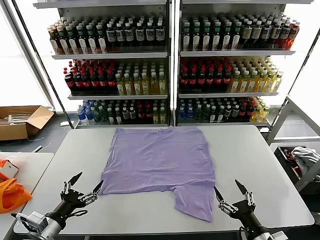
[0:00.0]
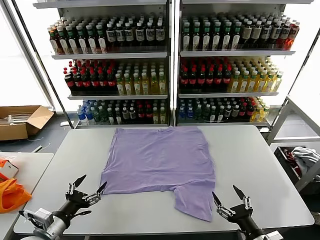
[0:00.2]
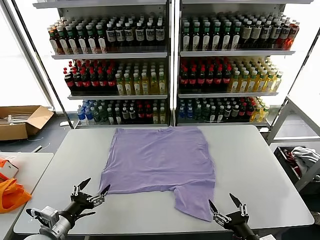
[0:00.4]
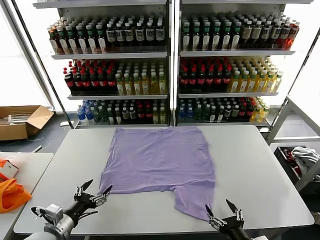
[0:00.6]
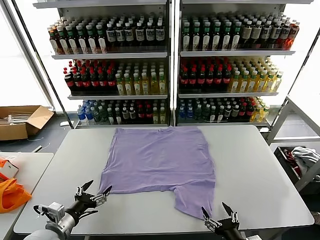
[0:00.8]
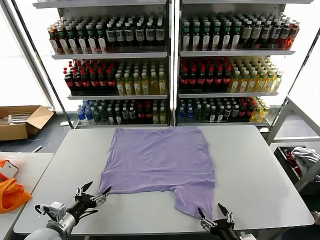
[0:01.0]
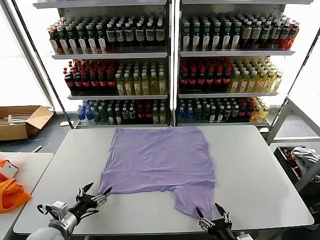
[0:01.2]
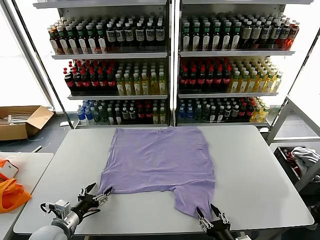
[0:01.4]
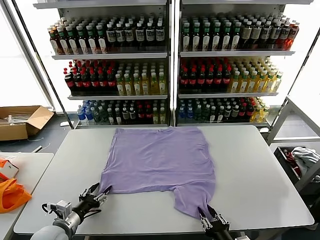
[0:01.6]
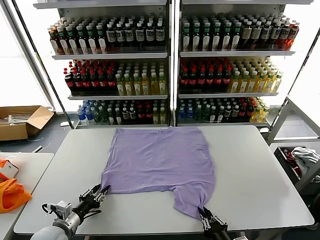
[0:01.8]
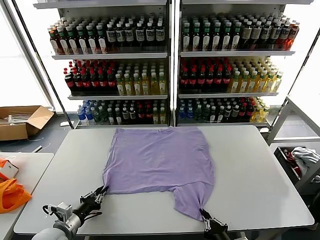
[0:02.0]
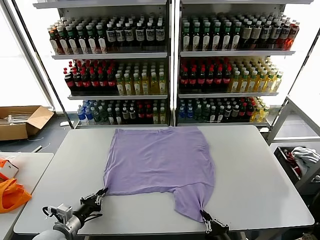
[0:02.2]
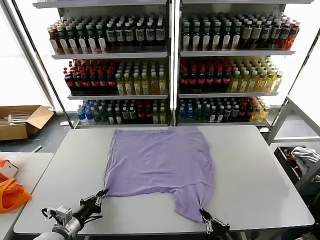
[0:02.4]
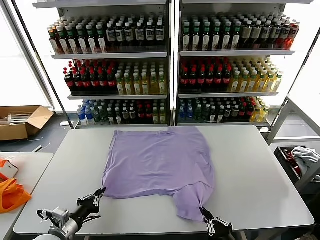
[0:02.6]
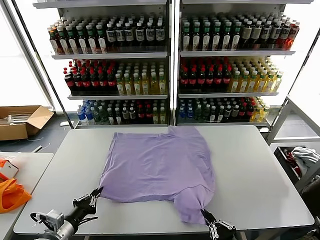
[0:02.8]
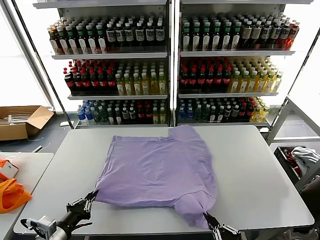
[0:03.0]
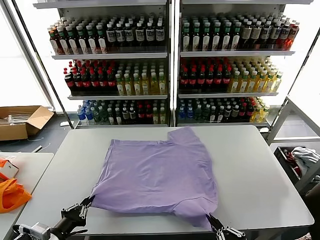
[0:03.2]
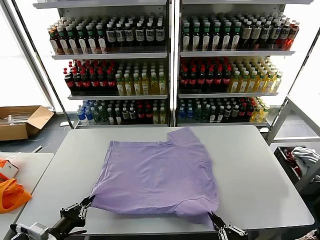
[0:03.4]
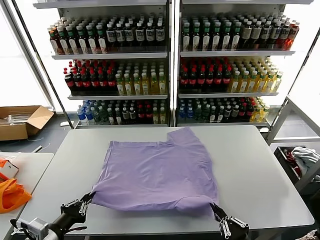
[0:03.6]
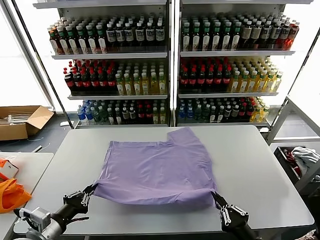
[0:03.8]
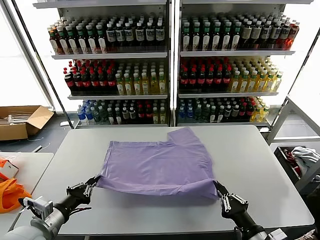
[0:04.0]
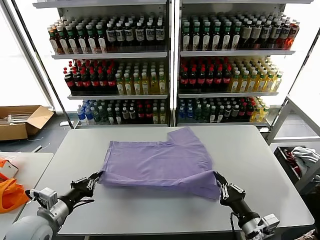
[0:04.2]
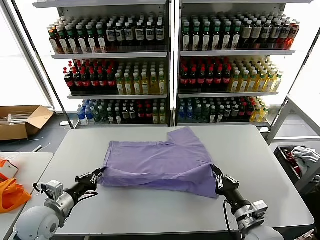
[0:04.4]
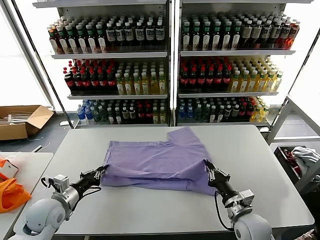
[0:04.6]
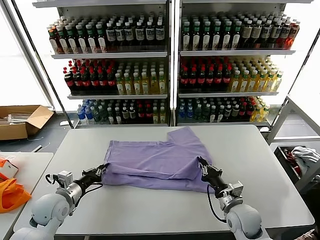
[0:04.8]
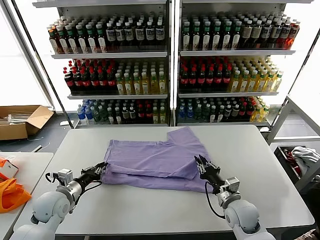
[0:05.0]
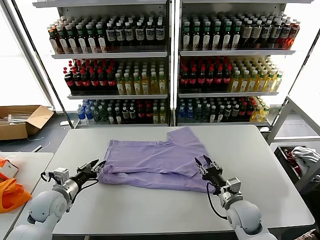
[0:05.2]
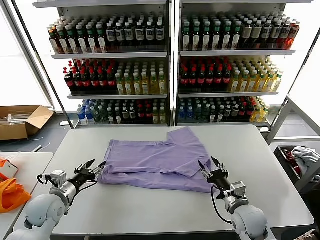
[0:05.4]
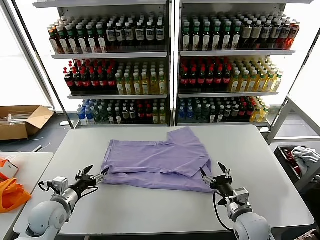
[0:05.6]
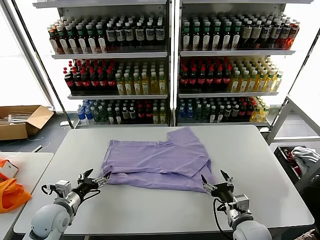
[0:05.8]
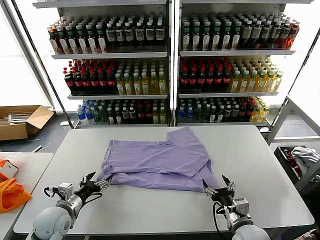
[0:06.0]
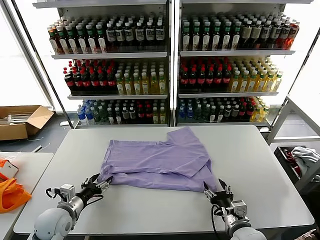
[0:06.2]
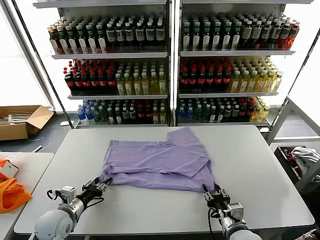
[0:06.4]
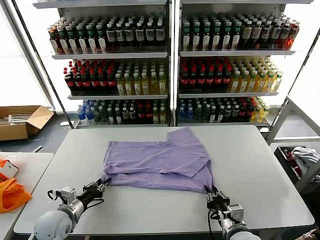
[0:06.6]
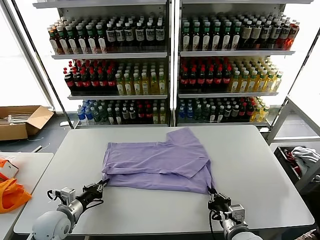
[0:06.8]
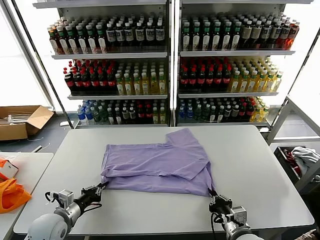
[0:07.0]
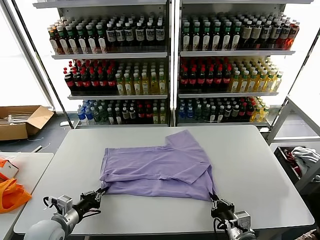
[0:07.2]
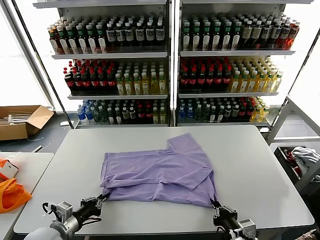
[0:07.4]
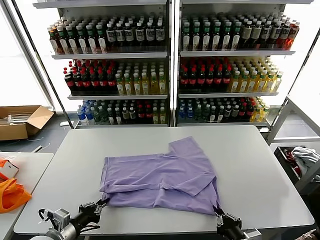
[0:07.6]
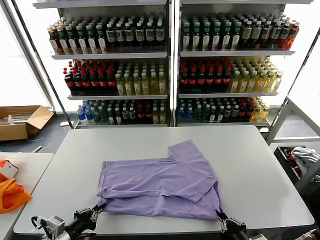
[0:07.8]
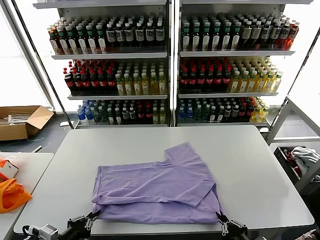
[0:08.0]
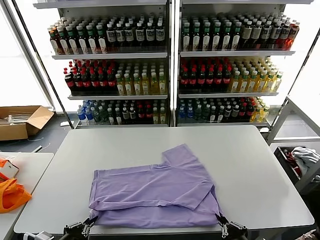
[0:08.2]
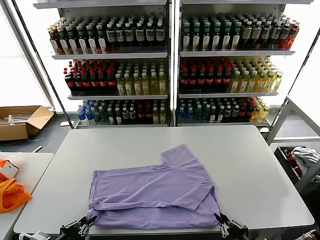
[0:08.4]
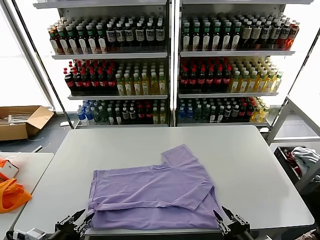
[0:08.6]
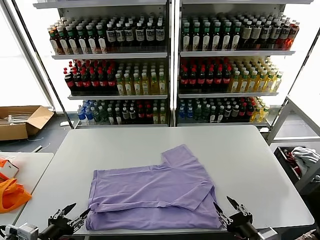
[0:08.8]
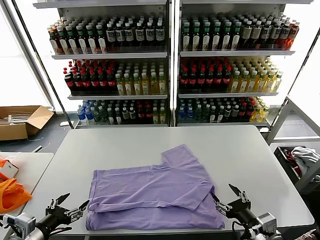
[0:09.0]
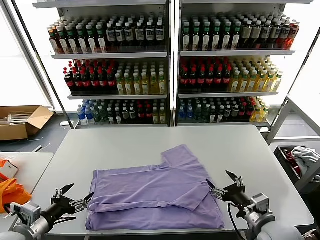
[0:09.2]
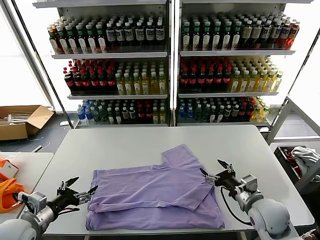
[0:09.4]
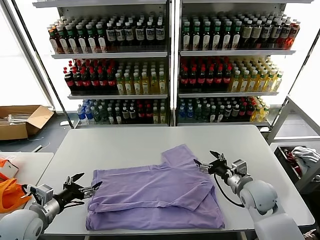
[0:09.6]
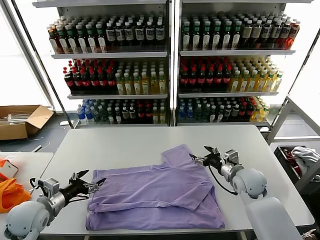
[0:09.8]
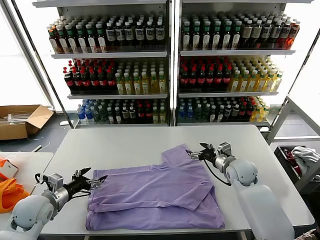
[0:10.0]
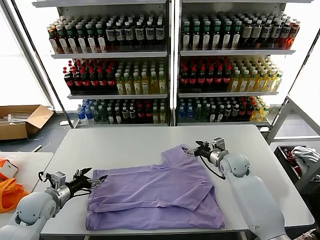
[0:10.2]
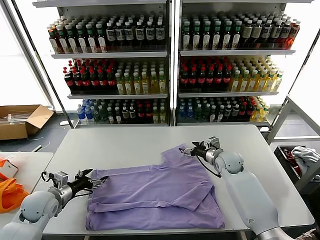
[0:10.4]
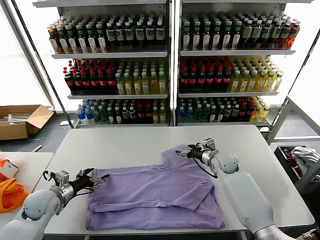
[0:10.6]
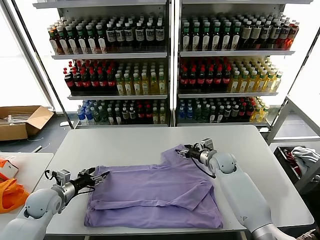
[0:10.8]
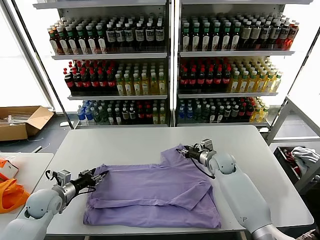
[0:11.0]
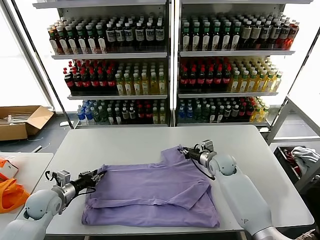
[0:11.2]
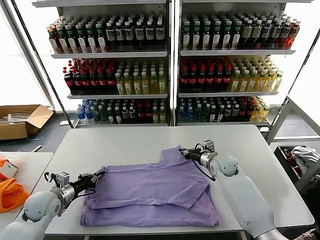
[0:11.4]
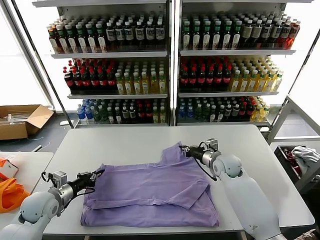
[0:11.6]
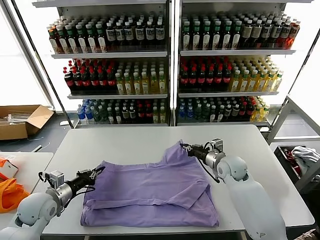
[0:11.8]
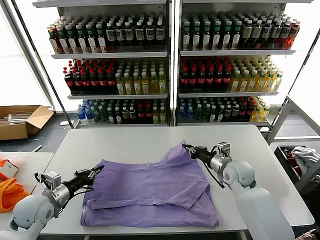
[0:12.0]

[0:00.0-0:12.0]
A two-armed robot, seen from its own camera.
Task of the whole recording: fold and organize the clothes.
Step, 0:00.0 to 0:02.2: use both grippers simultaneously to clamp the lower edge of the clothing fabric.
Step, 0:02.4 to 0:05.0: use both grippers to drag the lower edge of the fabric forward and fold it over the upper edge.
Step, 0:05.2 to 0:08.6: Drag the clothes downward with both gripper.
Step, 0:08.8 to 0:11.4: use both grippers simultaneously to clamp the upper edge of the clothing fabric.
0:01.6 to 0:03.0: The left gripper is displaced backward and upward by about 10 cm, and closes its fingers; the right gripper is displaced upward and backward by approximately 10 cm.
0:03.0 to 0:04.4: The right gripper heads forward, covering some 20 cm. Meanwhile the left gripper shifts some 10 cm forward.
0:04.4 to 0:06.0: The right gripper reaches roughly 5 cm forward, then returns, and opens; the left gripper opens.
0:06.0 to 0:07.6: Both grippers move backward, roughly 10 cm. The left gripper closes its fingers; the right gripper closes its fingers.
0:07.6 to 0:09.0: The left gripper is displaced upward by some 5 cm, and opens its fingers; the right gripper goes approximately 5 cm forward, and opens its fingers.
0:09.0 to 0:10.4: The left gripper goes approximately 20 cm forward and downward; the right gripper is displaced forward by approximately 30 cm.
0:10.4 to 0:12.0: The left gripper closes. The right gripper is displaced backward by roughly 10 cm, and closes its fingers.

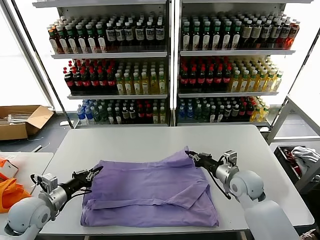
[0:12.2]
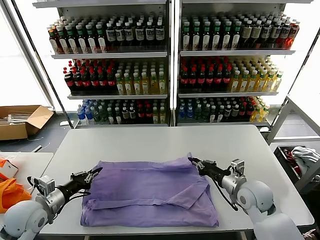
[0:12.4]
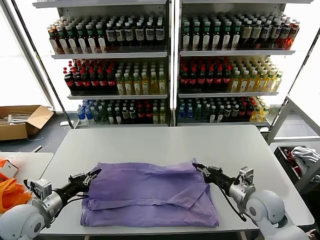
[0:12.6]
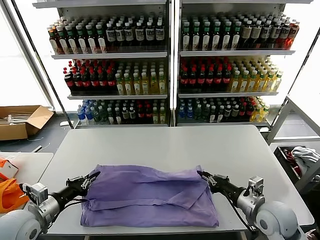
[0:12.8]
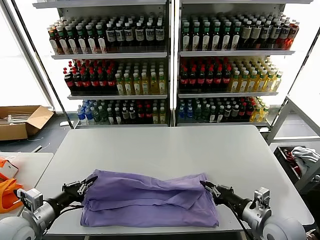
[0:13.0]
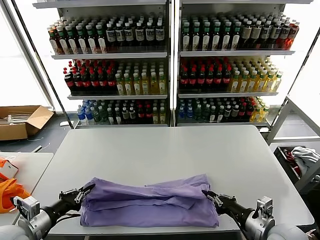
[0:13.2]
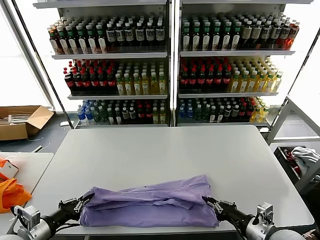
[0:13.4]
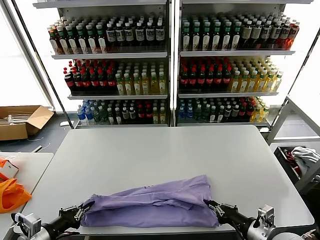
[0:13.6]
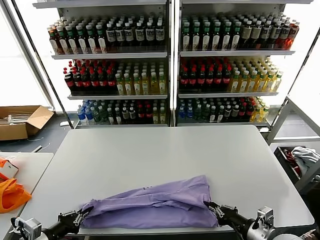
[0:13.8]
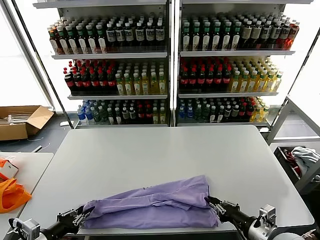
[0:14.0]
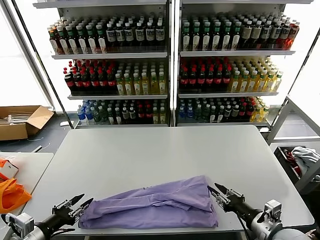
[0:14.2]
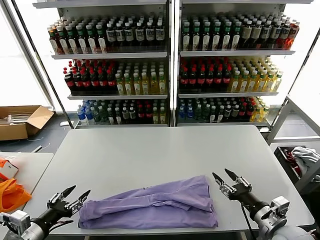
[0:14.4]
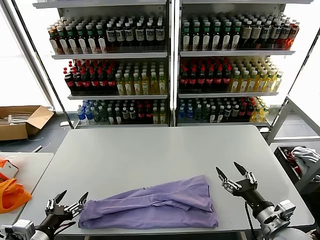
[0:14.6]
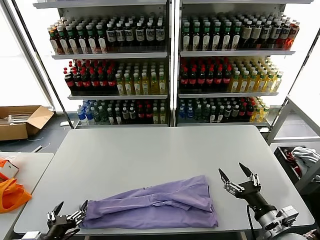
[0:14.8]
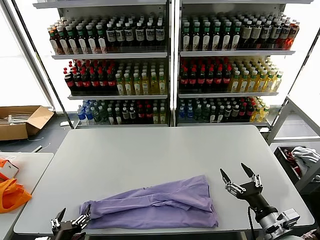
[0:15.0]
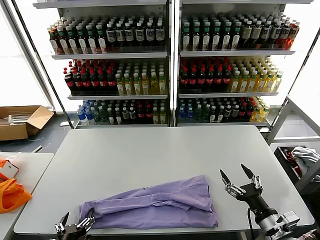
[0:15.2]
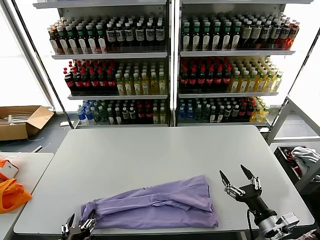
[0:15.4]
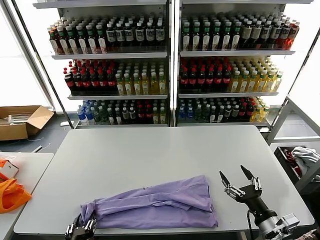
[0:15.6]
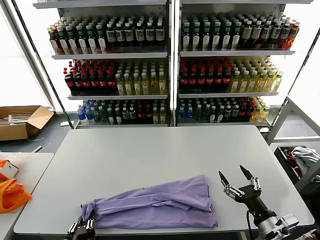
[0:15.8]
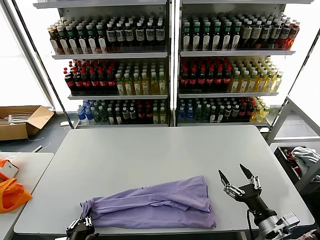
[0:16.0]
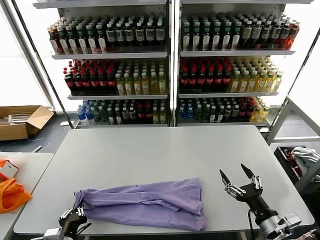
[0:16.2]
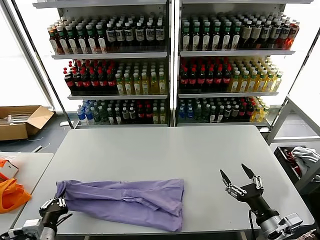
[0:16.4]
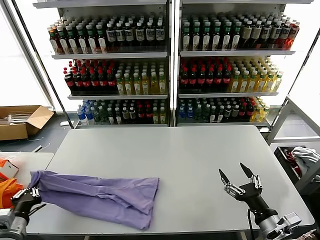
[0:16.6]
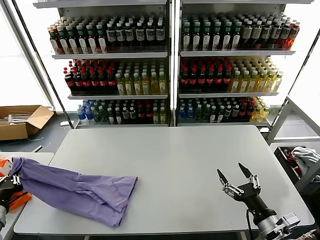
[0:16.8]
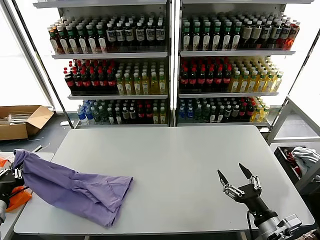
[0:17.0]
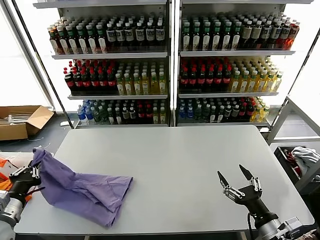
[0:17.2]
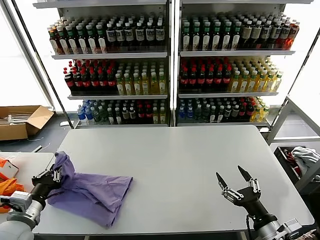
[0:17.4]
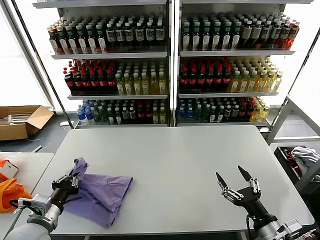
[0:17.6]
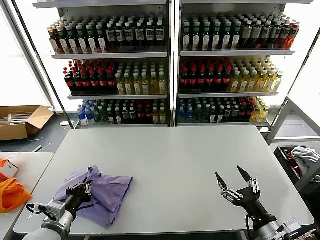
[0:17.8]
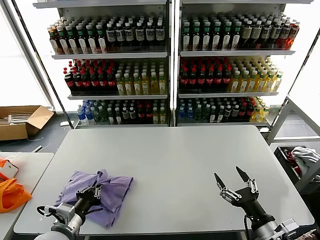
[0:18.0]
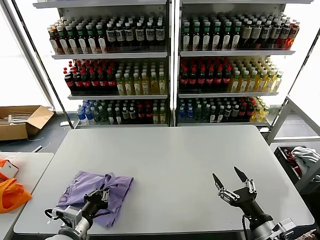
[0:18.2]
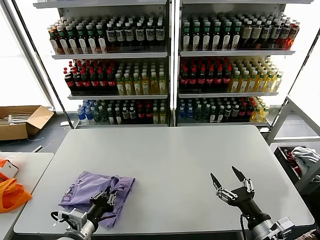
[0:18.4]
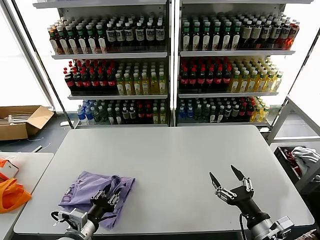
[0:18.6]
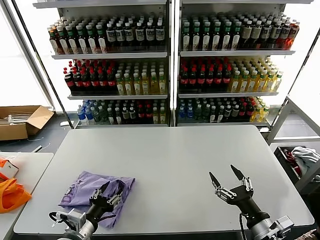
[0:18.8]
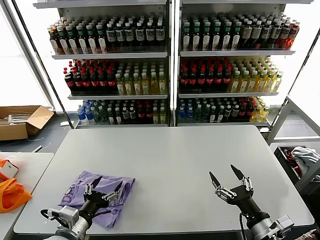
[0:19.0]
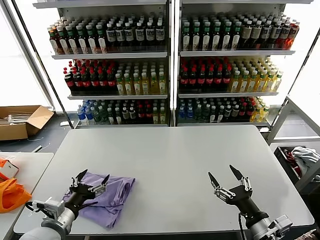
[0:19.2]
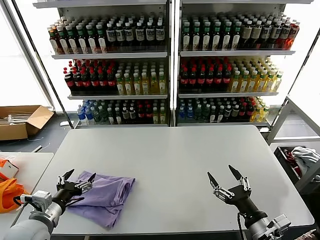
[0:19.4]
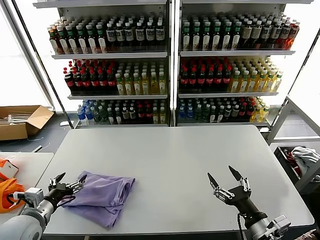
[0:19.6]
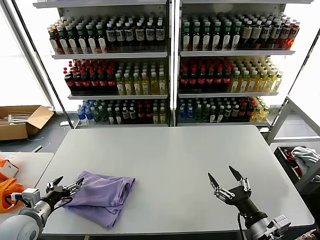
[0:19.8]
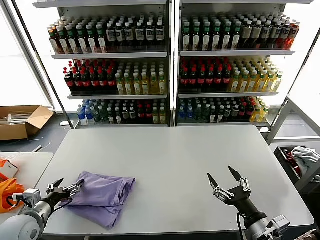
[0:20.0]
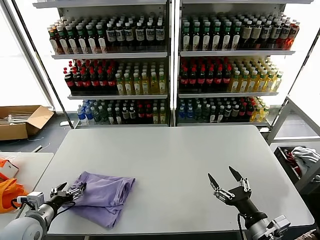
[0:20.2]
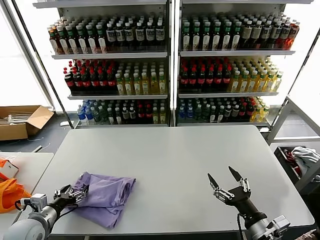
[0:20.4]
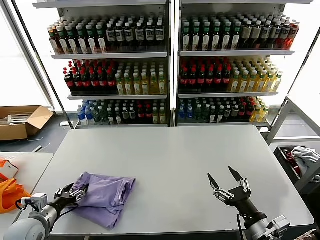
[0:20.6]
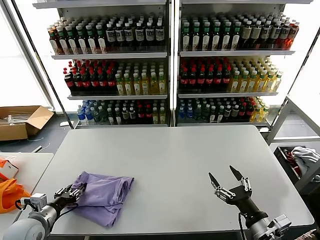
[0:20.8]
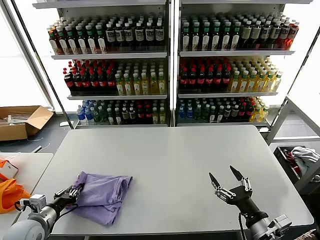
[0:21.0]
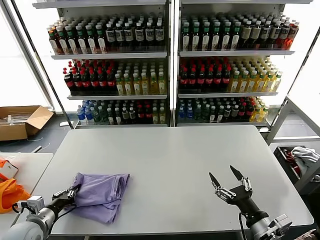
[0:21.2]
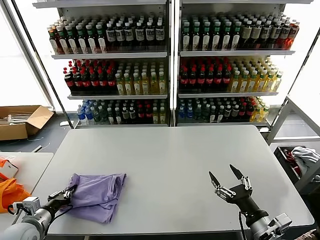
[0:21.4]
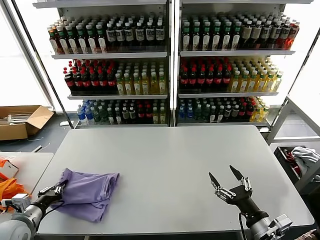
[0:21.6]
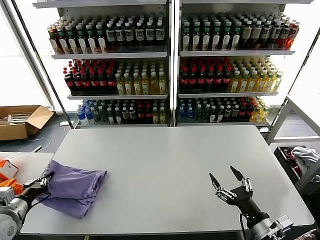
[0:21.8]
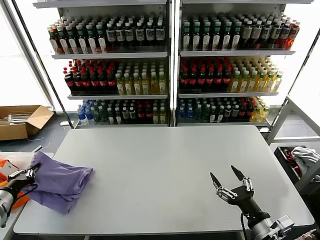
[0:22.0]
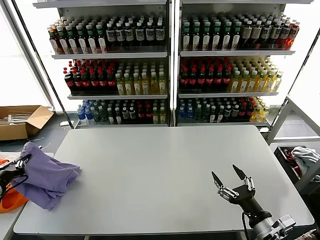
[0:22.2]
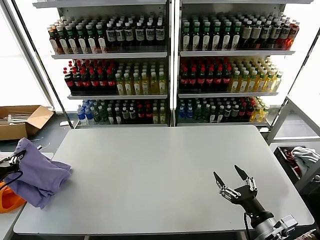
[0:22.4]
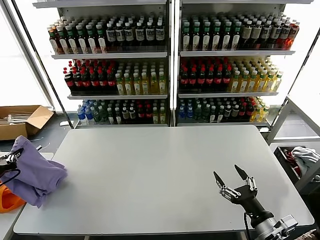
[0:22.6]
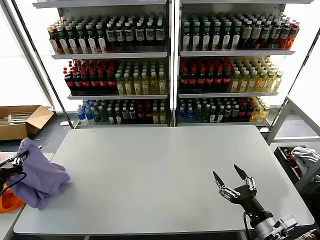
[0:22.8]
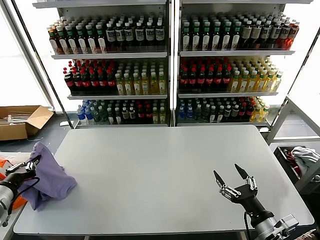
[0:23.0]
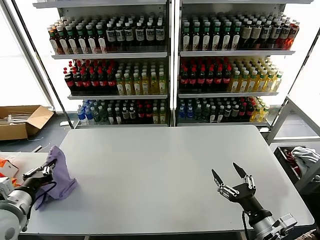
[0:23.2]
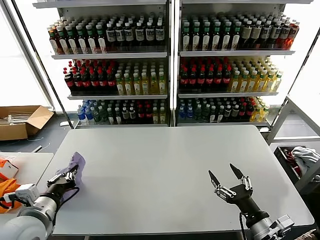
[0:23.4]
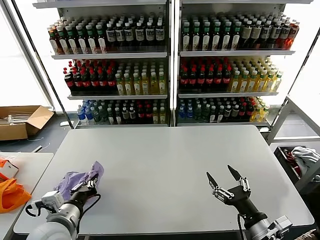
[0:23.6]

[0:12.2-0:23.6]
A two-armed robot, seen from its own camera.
Task of the whole recording: fold and organize the clothes.
Step, 0:12.2 to 0:14.0: use both grippers to drag the upper edge of the fabric backward and fold it over the lower edge.
Step, 0:14.4 to 0:16.0: use the left gripper to clamp the left edge of the fabric.
Step, 0:16.2 to 0:18.8: use the left gripper to drag the left edge of the fabric to the left and folds it over the right edge.
0:12.2 to 0:13.6: The two grippers go approximately 15 cm backward.
0:13.6 to 0:15.0: The right gripper opens, while the left gripper goes approximately 10 cm to the right and backward, and opens up.
0:15.0 to 0:16.4: The left gripper shifts about 5 cm to the left, and closes up.
0:16.4 to 0:17.8: The left gripper travels to the left and back again, about 15 cm each way.
0:17.8 to 0:19.4: The left gripper moves roughly 5 cm to the right and comes back, and opens its fingers.
0:19.4 to 0:20.8: The left gripper heads to the left and downward, covering about 10 cm, and closes its fingers.
0:20.8 to 0:22.2: The left gripper travels upward and to the left by roughly 15 cm, and closes its fingers.
0:22.2 to 0:23.6: The left gripper shifts about 20 cm to the right.
